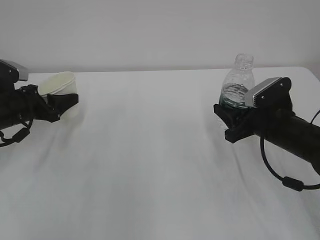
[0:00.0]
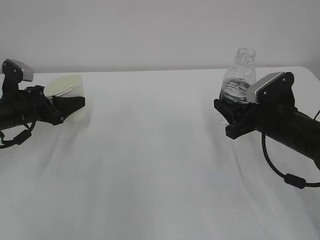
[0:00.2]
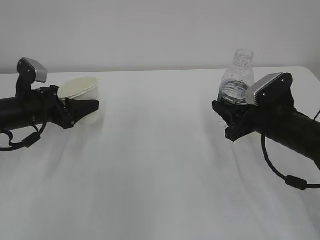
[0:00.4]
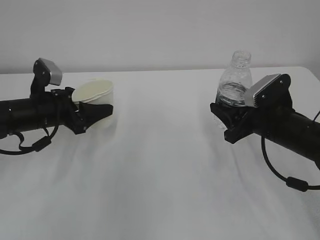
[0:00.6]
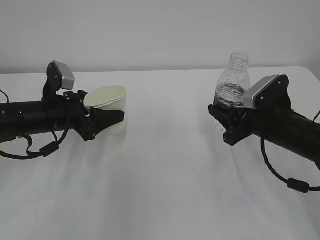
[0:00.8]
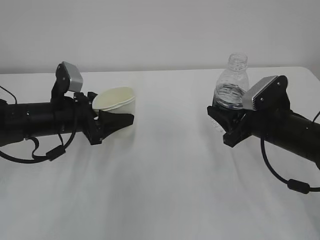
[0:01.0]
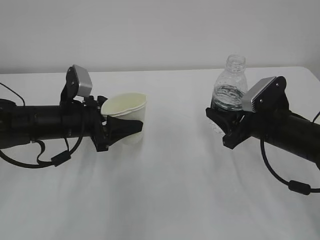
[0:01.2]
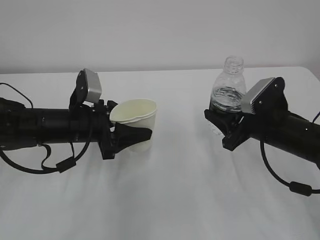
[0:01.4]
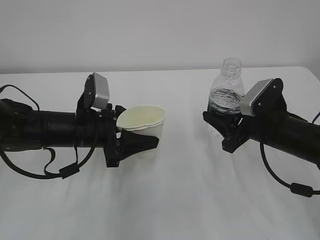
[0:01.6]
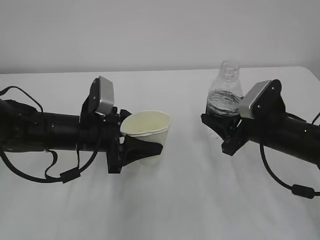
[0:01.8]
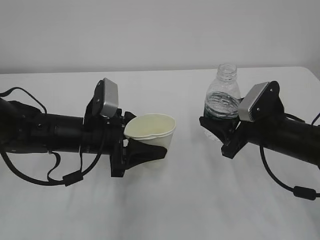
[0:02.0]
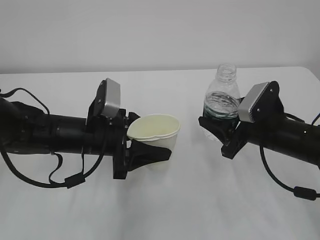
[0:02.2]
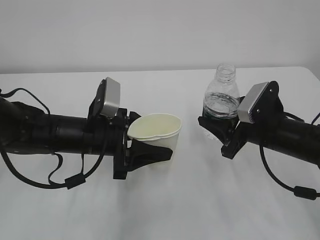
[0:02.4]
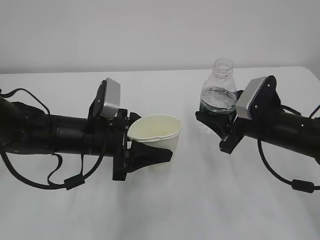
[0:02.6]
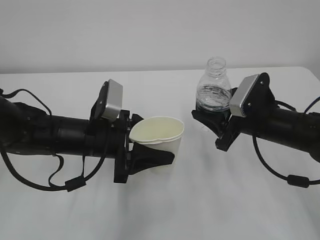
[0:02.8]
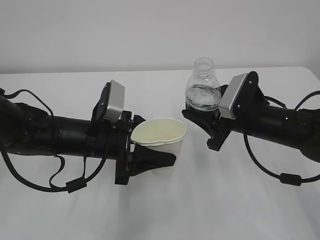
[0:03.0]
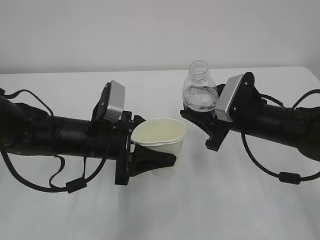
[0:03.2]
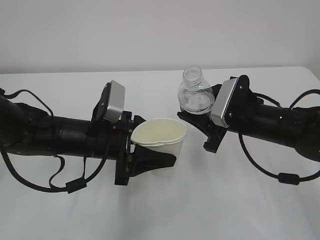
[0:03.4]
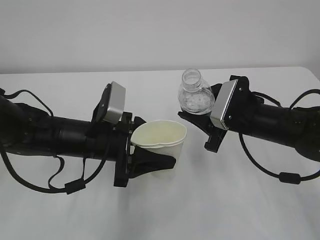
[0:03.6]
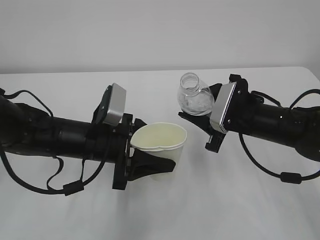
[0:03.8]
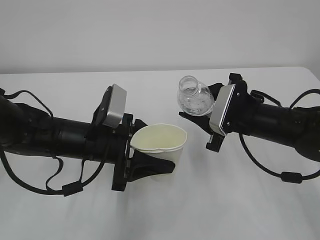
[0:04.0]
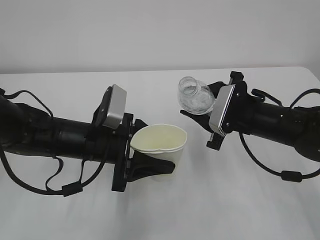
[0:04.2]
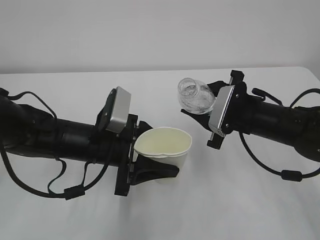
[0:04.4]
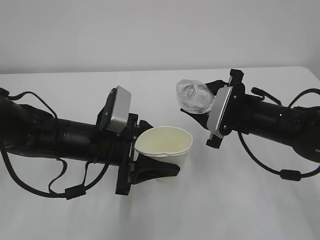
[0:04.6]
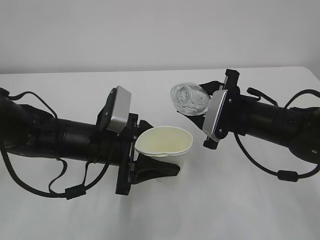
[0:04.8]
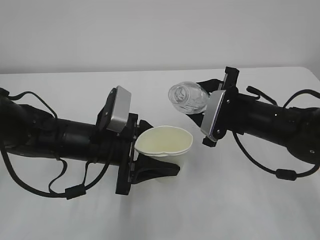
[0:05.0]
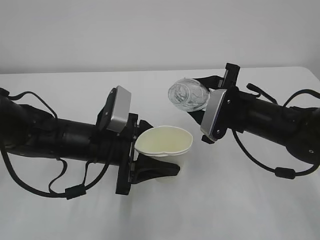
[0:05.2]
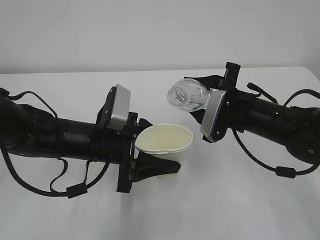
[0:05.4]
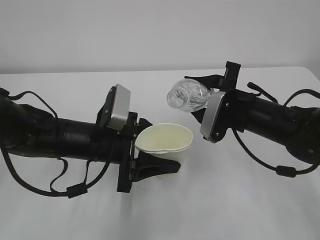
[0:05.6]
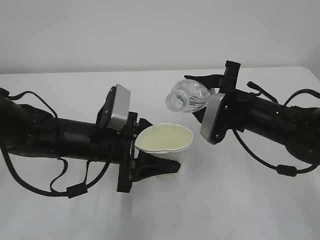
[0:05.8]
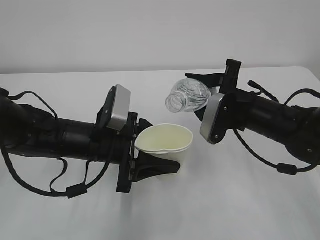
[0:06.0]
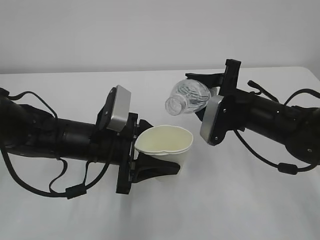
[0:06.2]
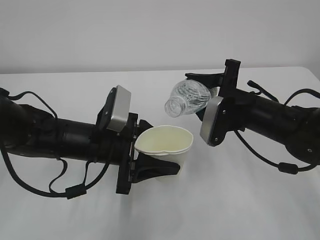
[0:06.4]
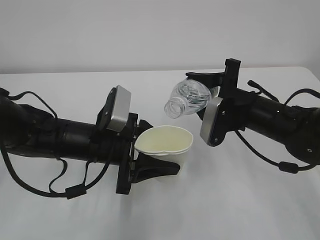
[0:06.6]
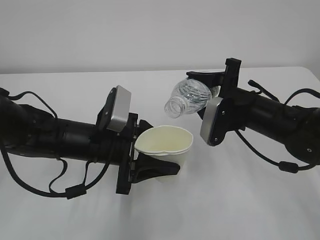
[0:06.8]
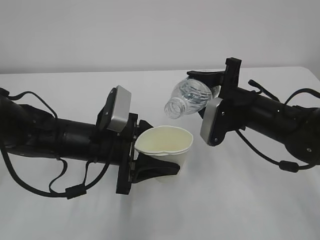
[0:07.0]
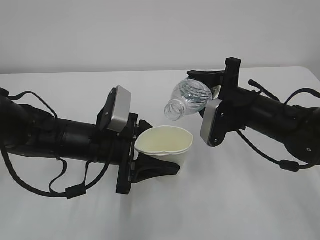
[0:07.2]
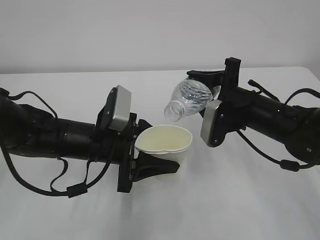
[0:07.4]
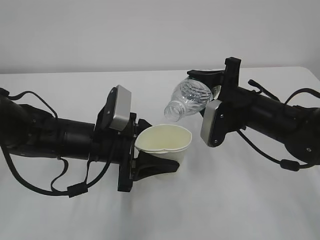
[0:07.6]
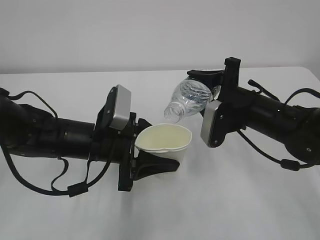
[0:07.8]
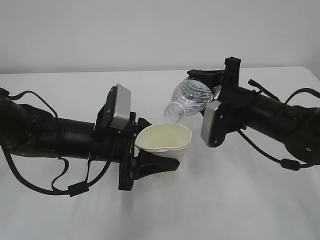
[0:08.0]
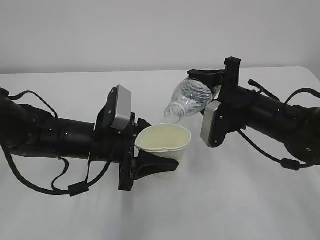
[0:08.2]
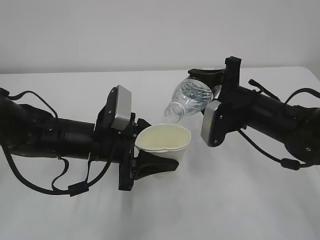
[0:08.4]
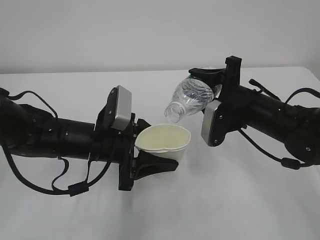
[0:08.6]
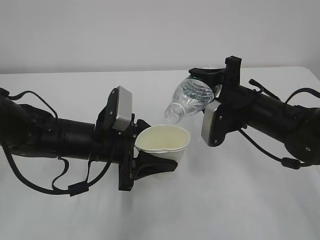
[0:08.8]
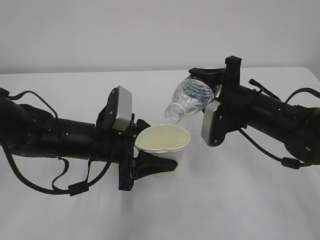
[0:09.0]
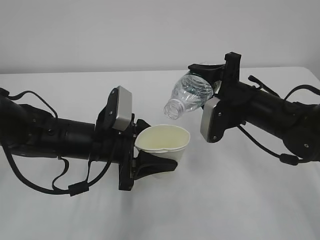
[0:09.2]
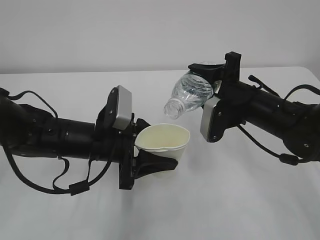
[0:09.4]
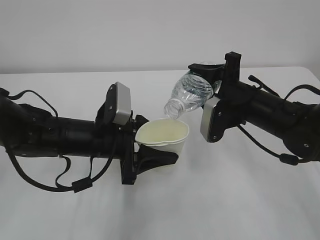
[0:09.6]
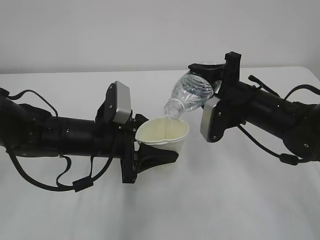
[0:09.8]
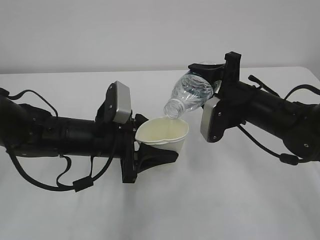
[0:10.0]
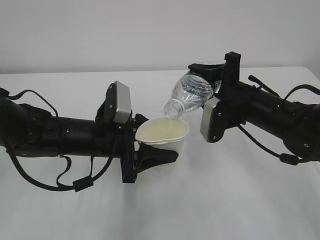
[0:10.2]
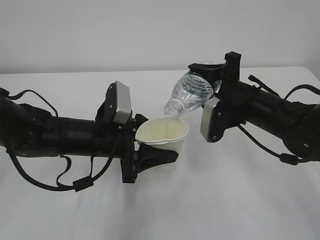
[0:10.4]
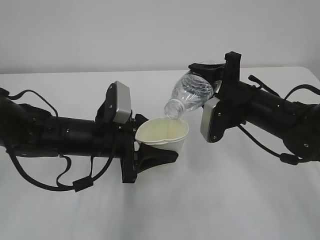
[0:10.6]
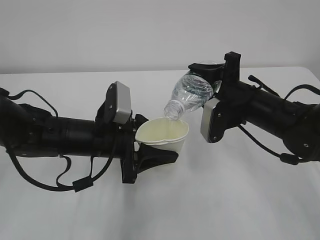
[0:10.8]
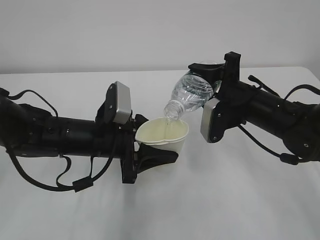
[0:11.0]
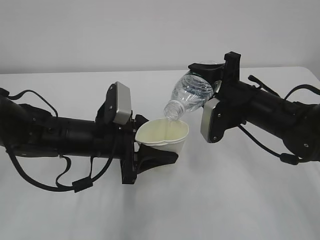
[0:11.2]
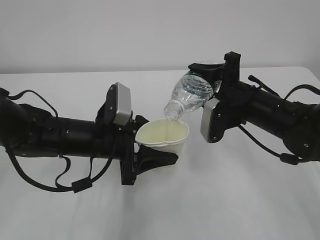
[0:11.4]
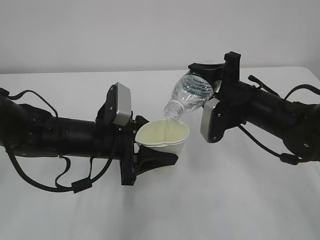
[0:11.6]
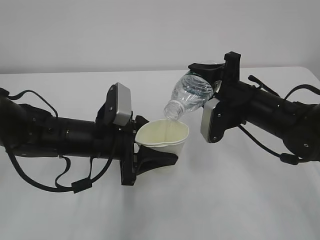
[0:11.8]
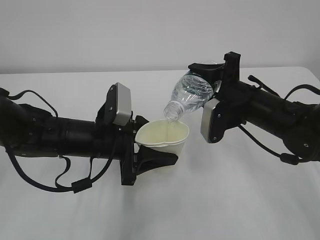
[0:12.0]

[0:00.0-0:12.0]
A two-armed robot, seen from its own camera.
0:00.0 to 0:01.6: The left gripper goes about 15 cm to the right and backward.
0:01.6 to 0:03.0: The grippers stay close to where they were, moving slightly.
0:06.0 to 0:07.6: There are only small adjustments of the grippers.
0:07.6 to 0:09.0: The two grippers keep their place.
0:09.0 to 0:12.0: Both grippers stay about where they are.

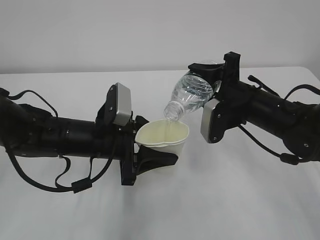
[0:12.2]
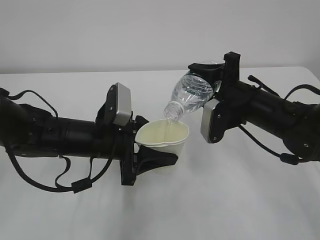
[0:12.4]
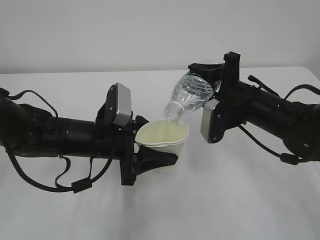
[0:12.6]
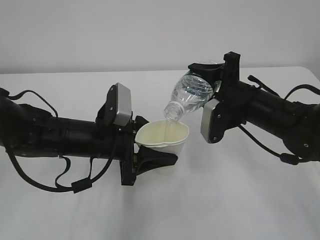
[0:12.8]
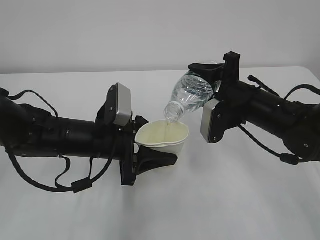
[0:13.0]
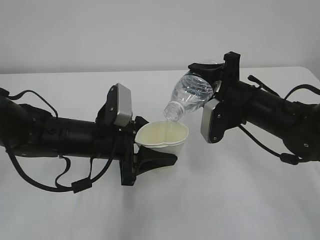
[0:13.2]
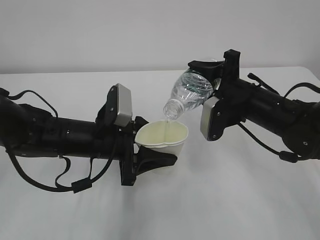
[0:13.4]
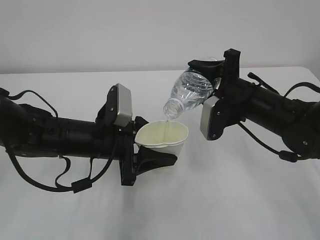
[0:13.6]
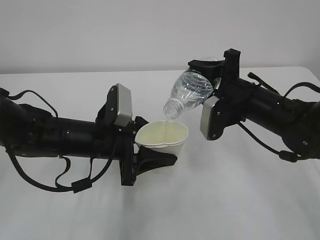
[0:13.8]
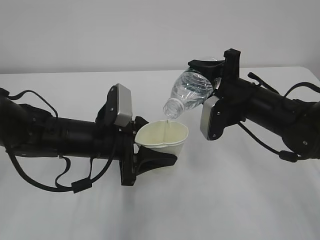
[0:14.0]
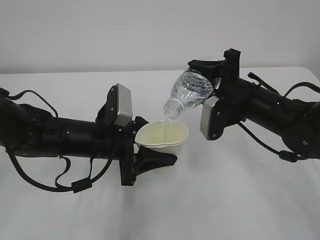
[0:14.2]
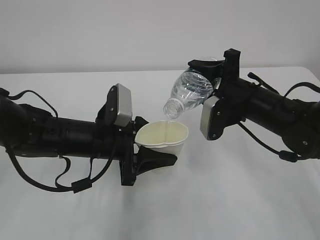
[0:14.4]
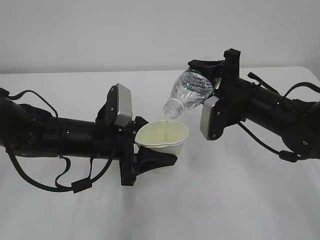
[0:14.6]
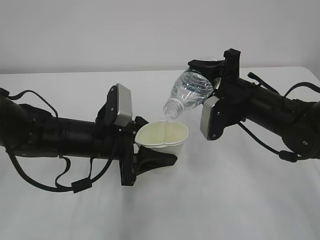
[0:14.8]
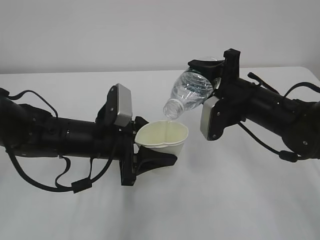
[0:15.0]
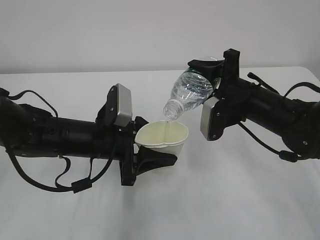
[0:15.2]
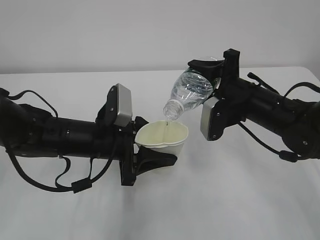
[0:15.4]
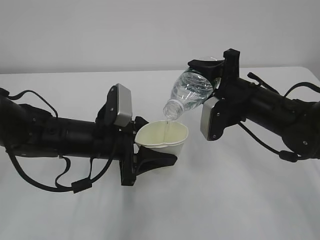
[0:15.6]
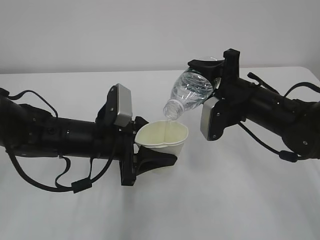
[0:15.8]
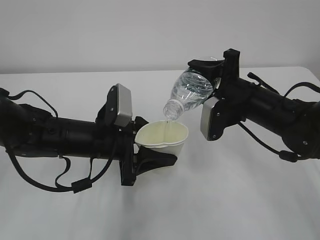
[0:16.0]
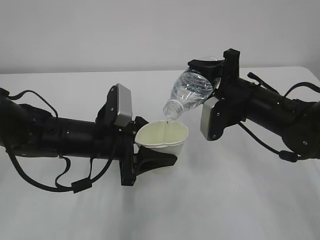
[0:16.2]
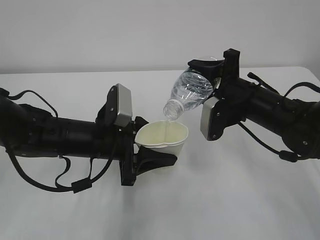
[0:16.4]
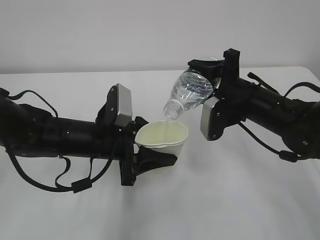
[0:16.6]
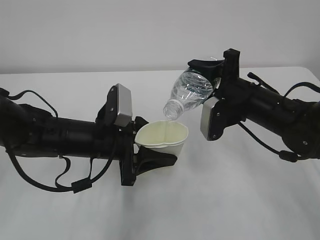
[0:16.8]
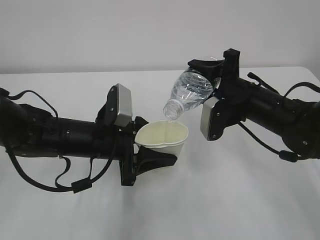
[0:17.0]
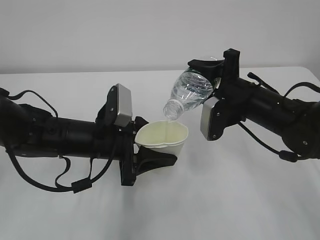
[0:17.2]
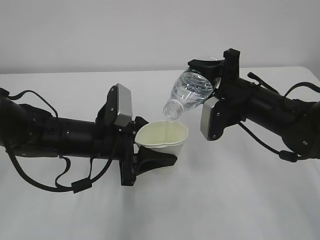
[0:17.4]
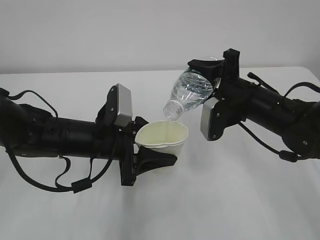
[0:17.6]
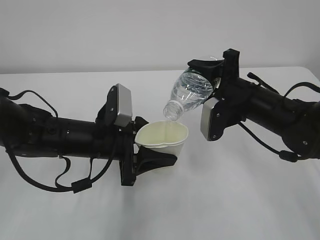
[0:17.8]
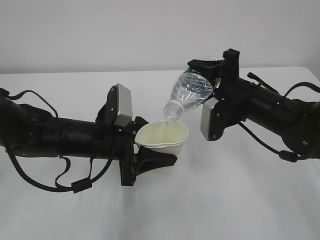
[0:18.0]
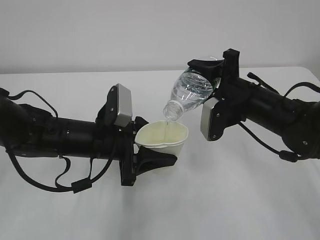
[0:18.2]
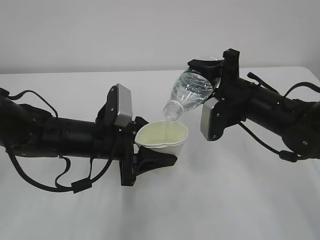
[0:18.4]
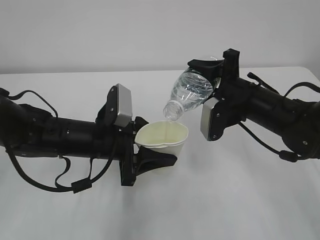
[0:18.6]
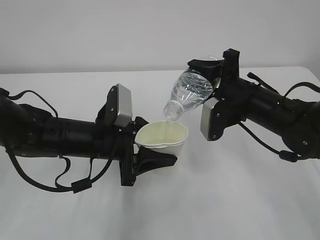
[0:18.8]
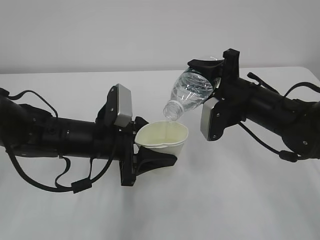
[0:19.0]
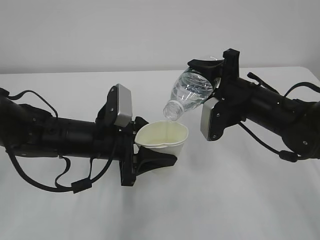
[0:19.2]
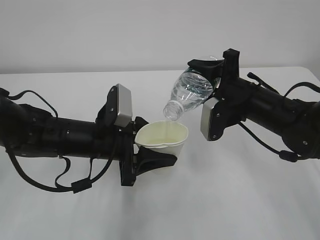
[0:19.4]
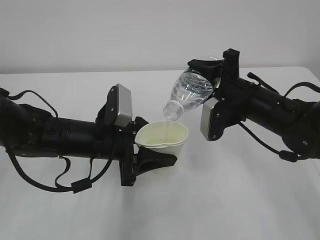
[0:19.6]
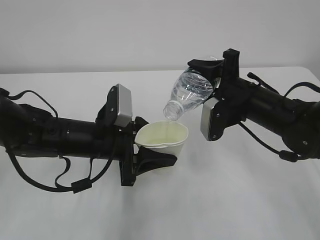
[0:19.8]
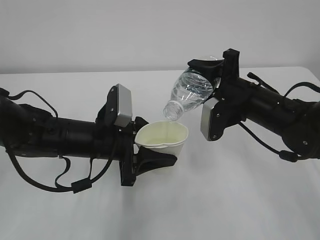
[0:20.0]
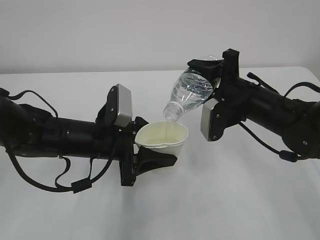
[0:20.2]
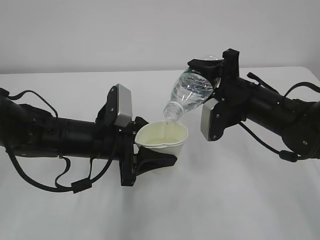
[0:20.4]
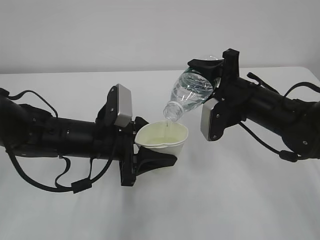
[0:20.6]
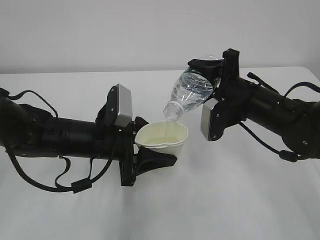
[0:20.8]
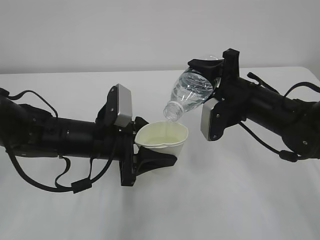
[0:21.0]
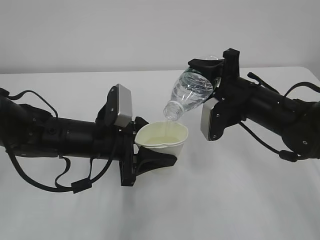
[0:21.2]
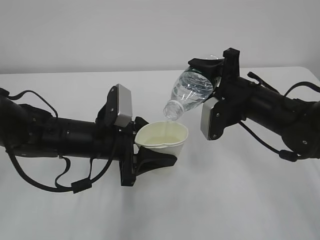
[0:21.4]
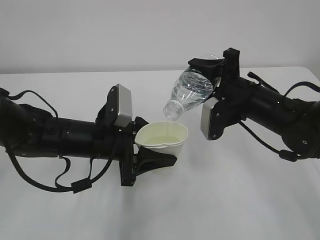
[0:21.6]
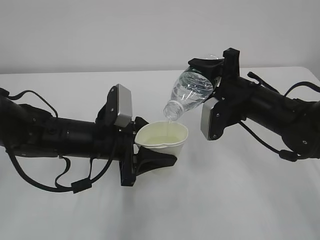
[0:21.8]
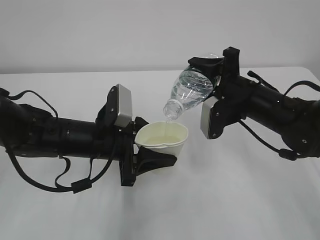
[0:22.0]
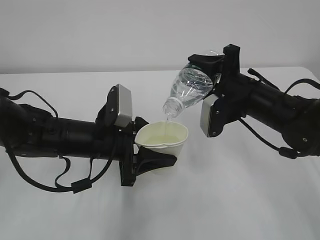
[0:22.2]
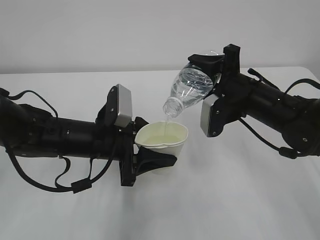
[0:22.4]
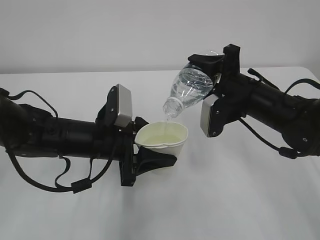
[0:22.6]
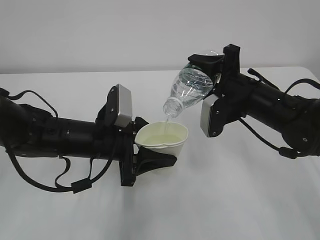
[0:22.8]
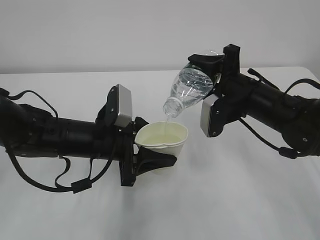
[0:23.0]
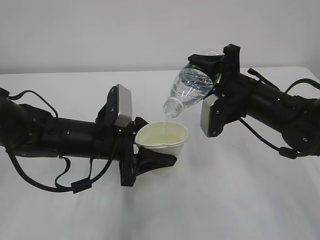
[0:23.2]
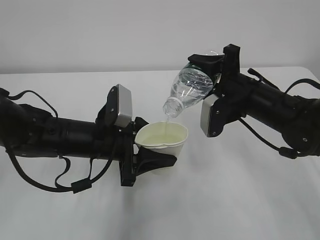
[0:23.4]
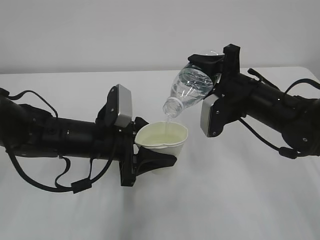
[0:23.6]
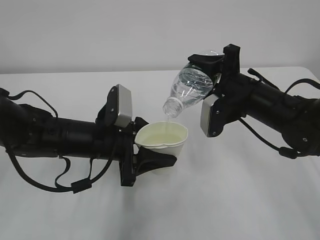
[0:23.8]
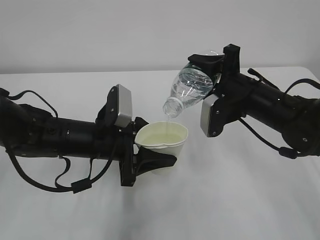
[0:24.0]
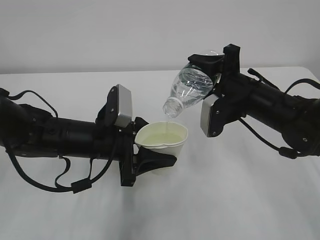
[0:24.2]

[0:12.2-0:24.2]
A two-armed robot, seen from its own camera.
0:12.2 to 0:21.2: The two grippers keep their place.
0:21.2 to 0:24.2: The two grippers keep their place.
